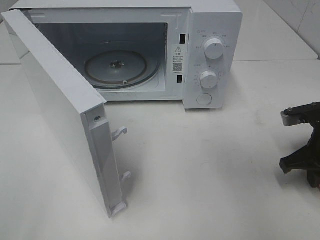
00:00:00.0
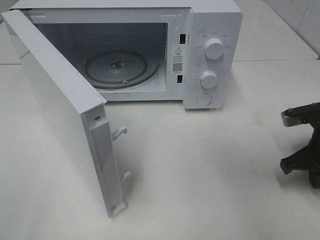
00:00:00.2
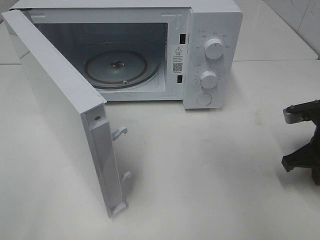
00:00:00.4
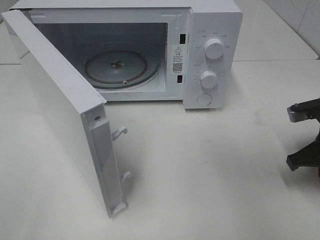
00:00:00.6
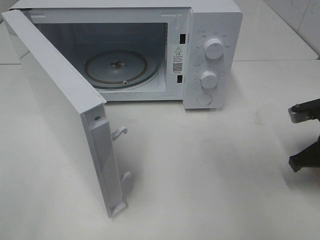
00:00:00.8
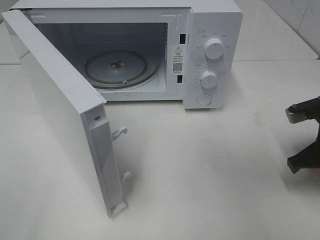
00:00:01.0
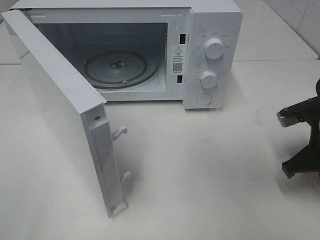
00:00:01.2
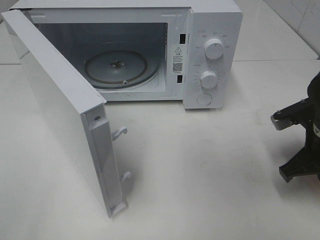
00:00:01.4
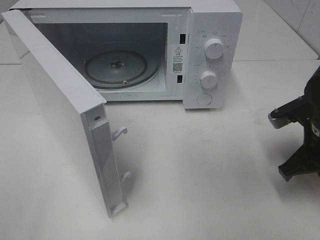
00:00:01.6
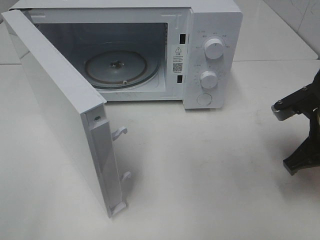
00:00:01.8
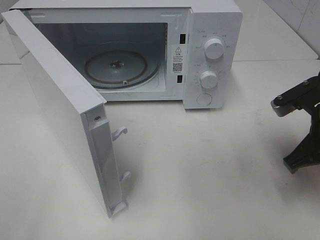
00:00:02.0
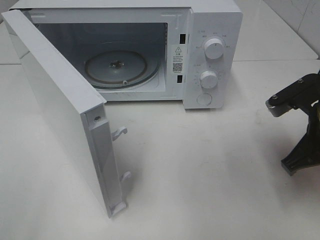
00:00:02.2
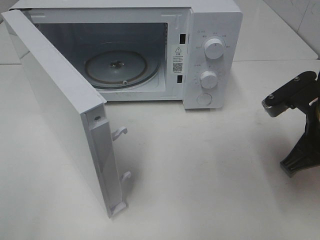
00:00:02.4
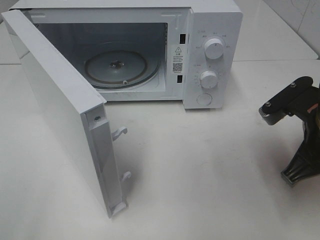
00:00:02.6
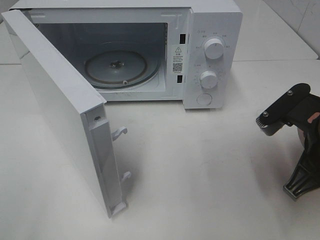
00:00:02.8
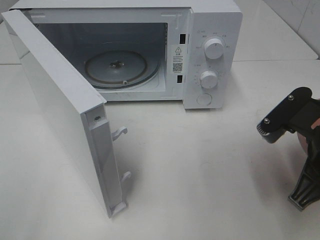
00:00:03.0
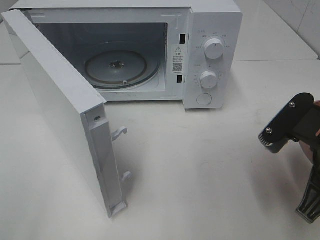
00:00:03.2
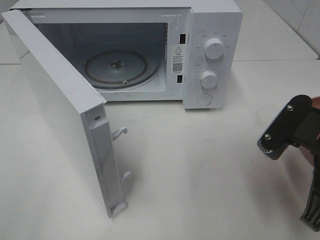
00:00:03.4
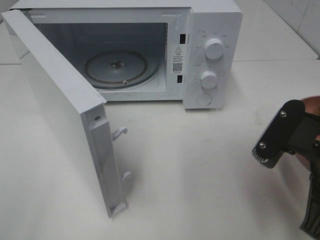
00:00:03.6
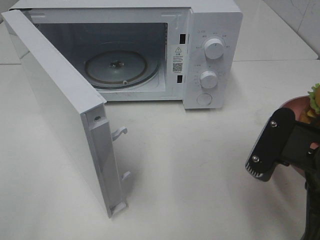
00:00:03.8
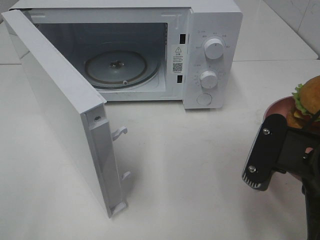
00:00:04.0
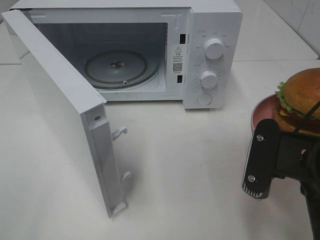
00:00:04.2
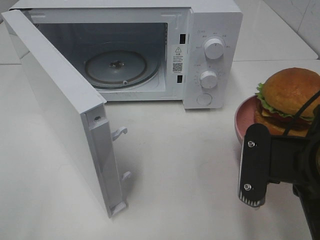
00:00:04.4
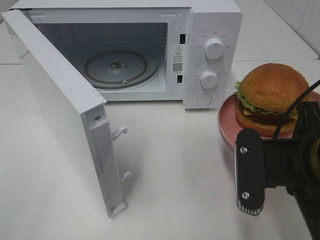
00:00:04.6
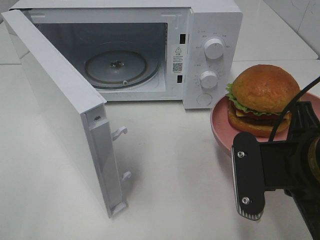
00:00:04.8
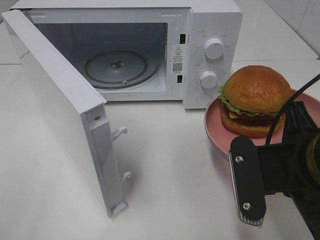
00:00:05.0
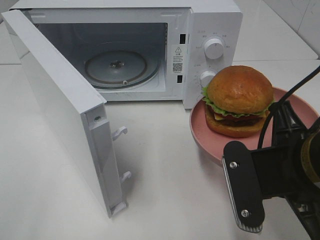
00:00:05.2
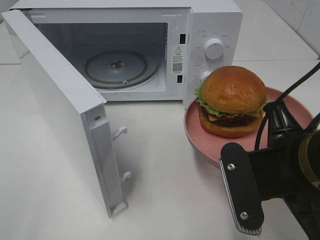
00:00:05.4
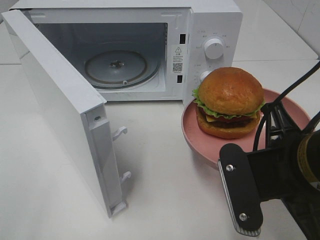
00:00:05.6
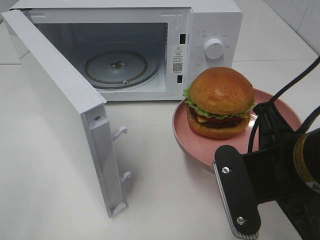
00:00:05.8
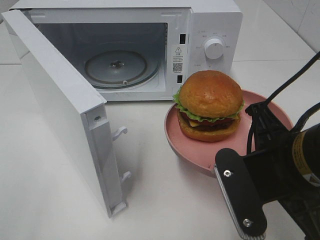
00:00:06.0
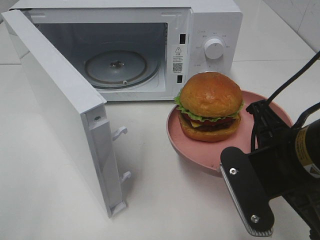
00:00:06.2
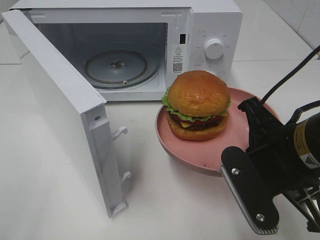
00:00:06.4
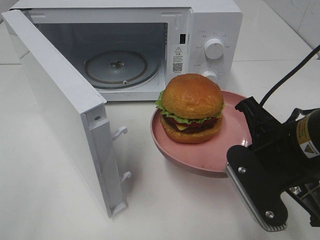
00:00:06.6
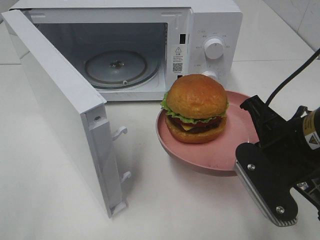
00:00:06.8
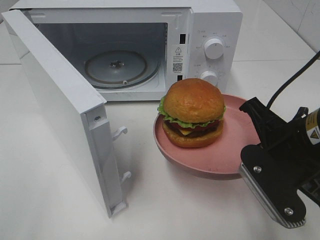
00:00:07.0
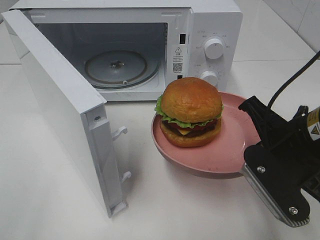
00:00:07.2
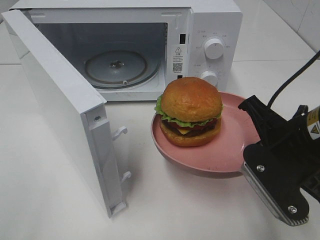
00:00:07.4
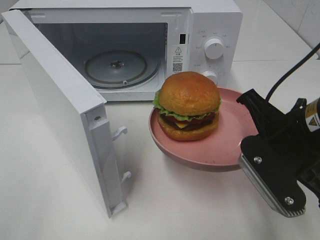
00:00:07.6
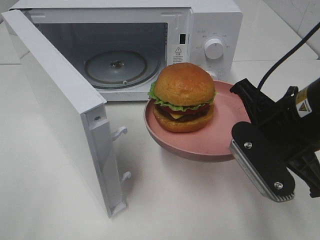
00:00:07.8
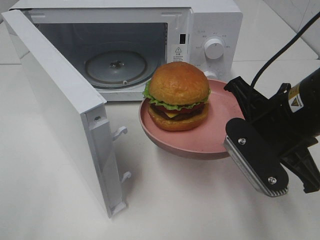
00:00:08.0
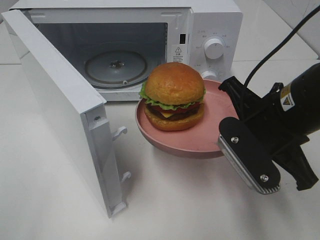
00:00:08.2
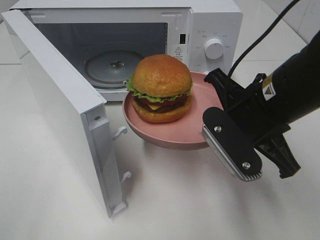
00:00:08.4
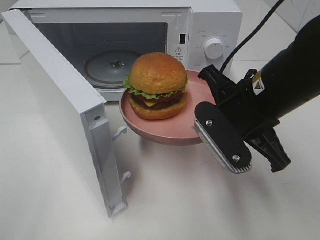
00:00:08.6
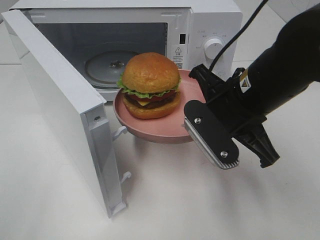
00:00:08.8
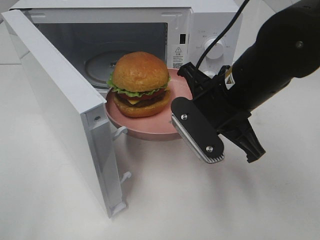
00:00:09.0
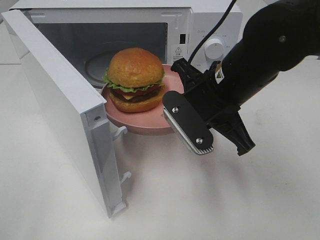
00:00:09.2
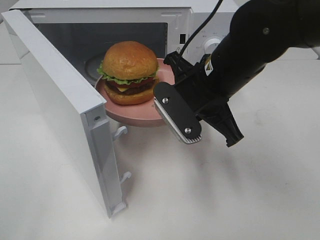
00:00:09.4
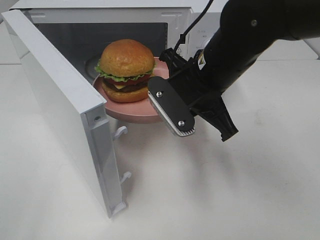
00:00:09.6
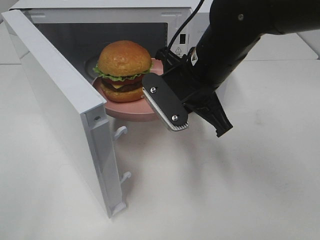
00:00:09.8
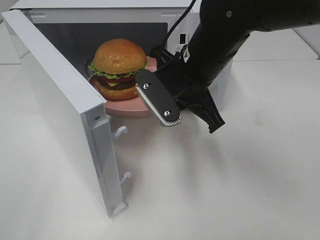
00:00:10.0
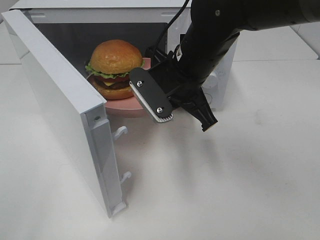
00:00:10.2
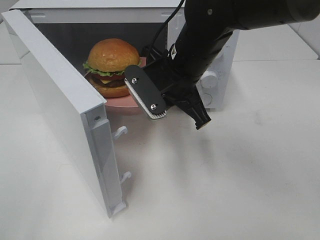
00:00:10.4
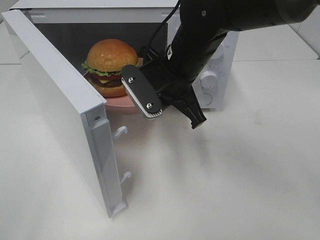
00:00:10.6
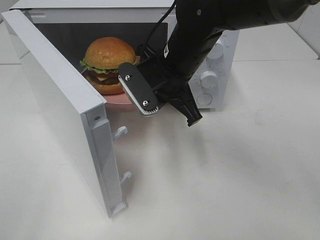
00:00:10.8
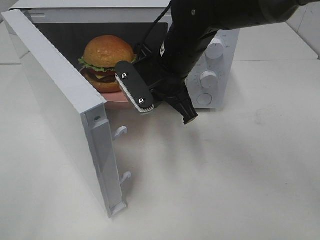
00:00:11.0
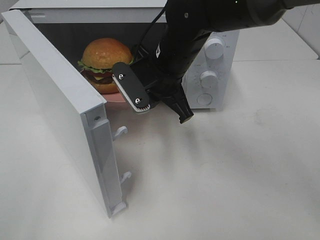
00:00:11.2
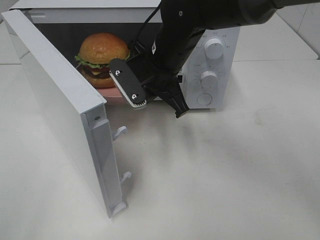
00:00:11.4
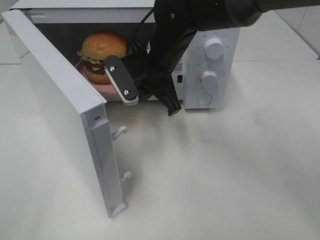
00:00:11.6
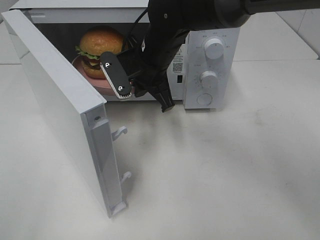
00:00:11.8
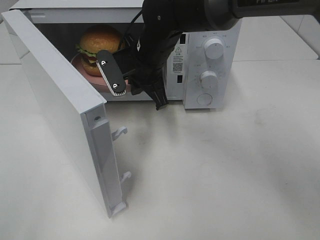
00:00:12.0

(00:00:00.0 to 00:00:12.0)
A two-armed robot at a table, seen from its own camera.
Task of the whole recording: Heat the burger.
00:00:00.0 - 00:00:01.6: The right gripper ends up roughly 5 cm from where it was.
00:00:01.6 - 00:00:03.0: The right gripper goes approximately 10 cm backward and upward.
00:00:03.0 - 00:00:04.4: The right gripper changes place by roughly 5 cm.
00:00:06.0 - 00:00:07.6: The right gripper ends up about 5 cm from where it was.
00:00:07.6 - 00:00:09.0: The right gripper goes approximately 10 cm to the left and forward.
00:00:09.0 - 00:00:10.4: The right gripper heads forward and to the left, covering about 10 cm.
00:00:10.4 - 00:00:12.0: The right gripper shifts approximately 10 cm forward and to the left.

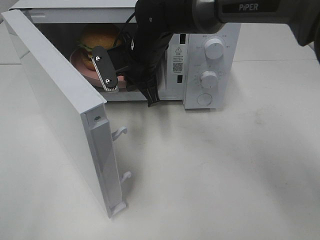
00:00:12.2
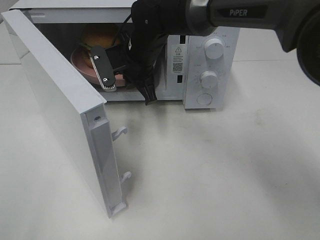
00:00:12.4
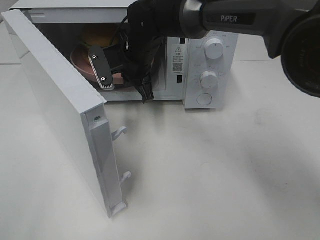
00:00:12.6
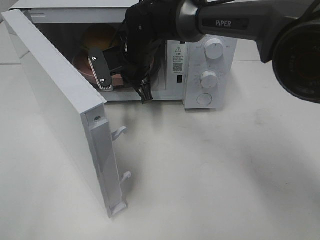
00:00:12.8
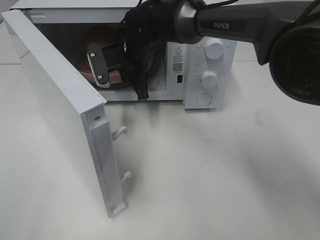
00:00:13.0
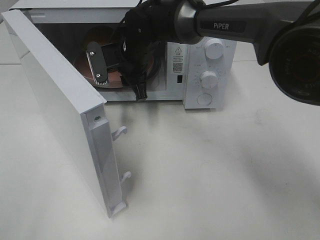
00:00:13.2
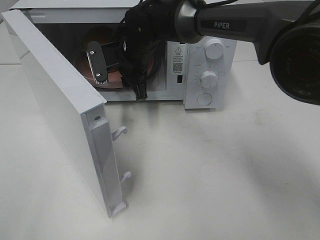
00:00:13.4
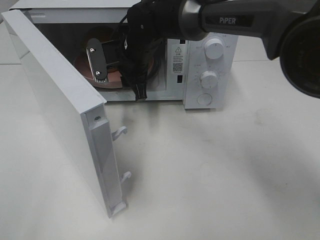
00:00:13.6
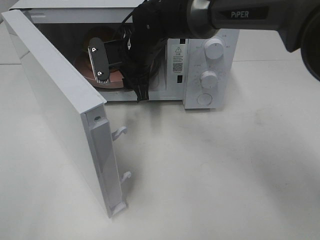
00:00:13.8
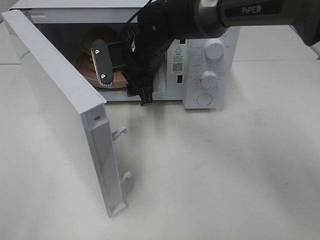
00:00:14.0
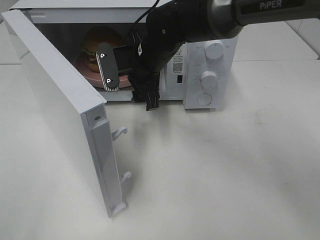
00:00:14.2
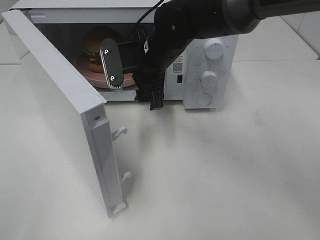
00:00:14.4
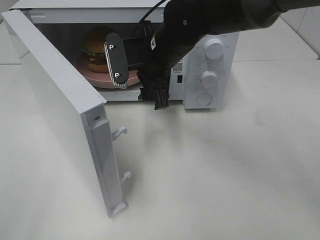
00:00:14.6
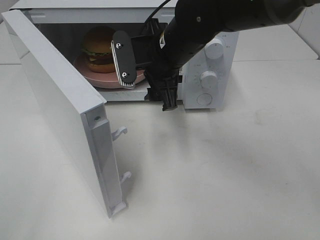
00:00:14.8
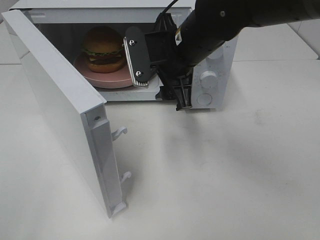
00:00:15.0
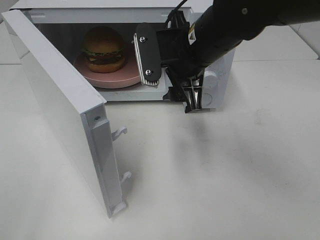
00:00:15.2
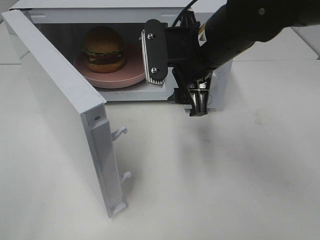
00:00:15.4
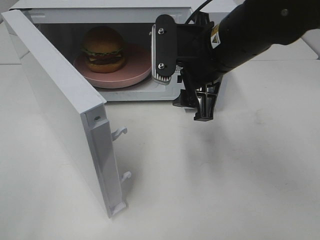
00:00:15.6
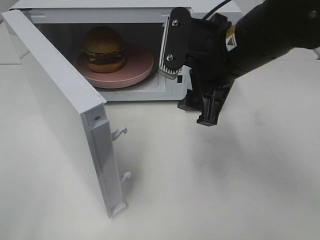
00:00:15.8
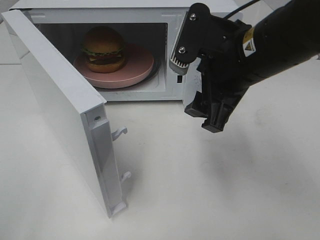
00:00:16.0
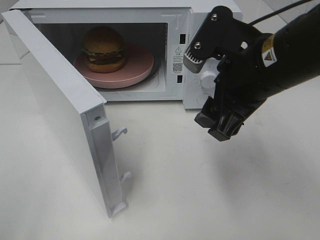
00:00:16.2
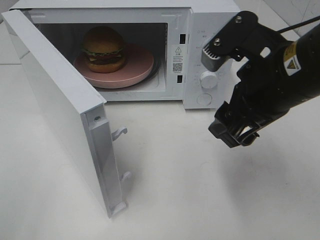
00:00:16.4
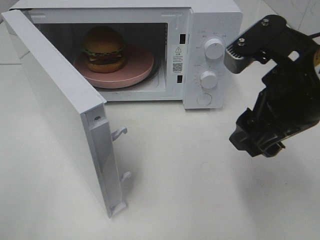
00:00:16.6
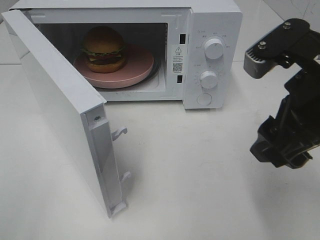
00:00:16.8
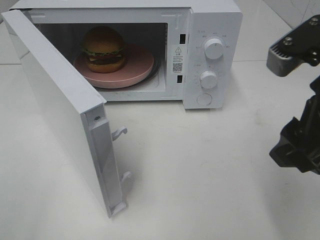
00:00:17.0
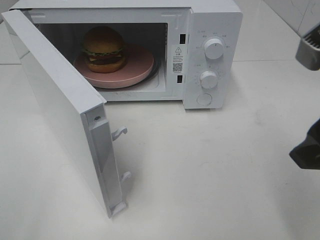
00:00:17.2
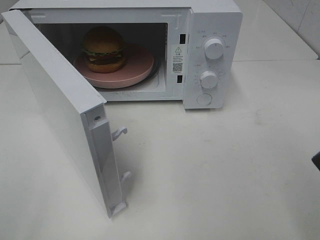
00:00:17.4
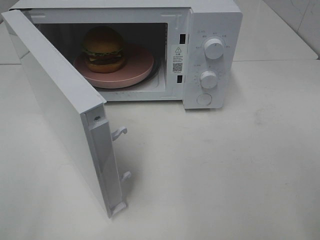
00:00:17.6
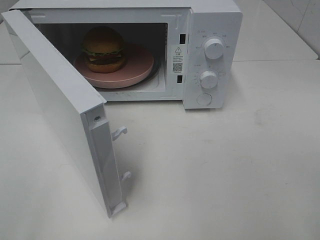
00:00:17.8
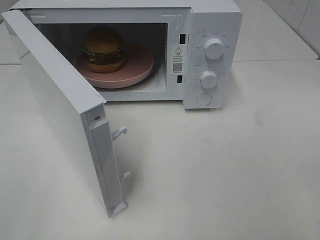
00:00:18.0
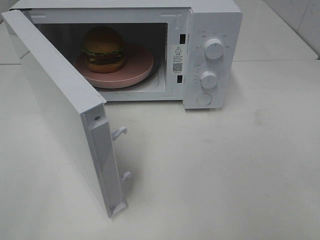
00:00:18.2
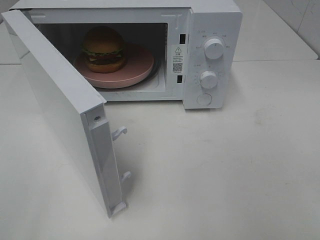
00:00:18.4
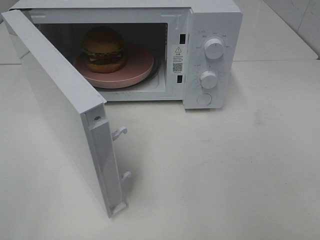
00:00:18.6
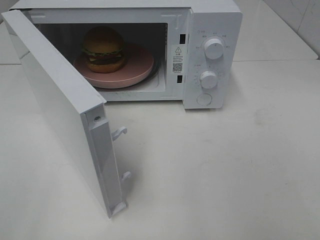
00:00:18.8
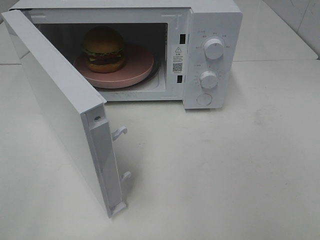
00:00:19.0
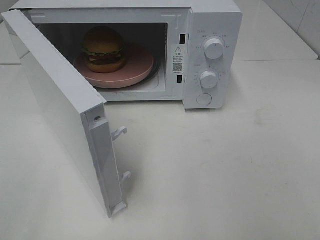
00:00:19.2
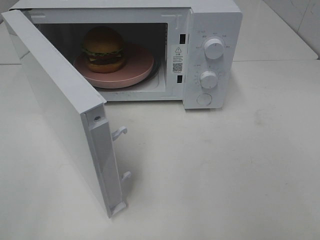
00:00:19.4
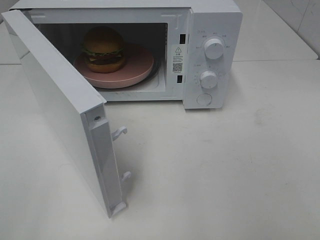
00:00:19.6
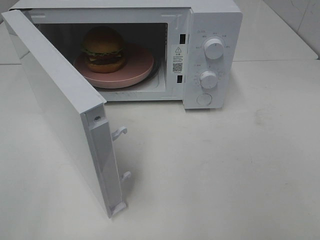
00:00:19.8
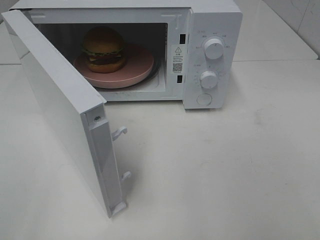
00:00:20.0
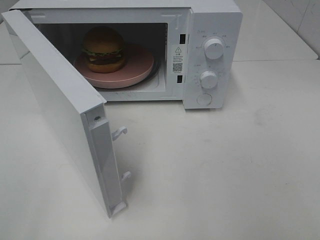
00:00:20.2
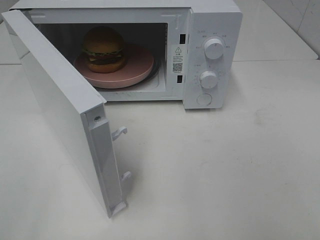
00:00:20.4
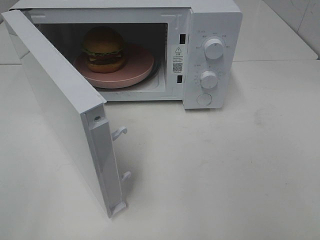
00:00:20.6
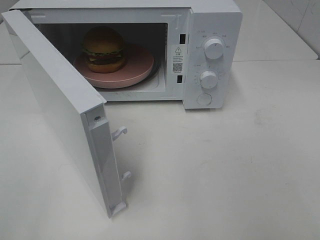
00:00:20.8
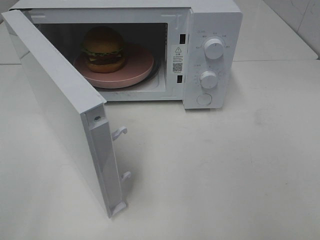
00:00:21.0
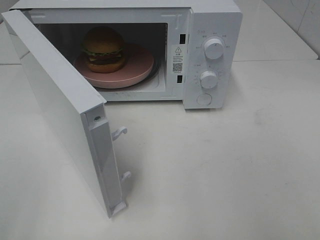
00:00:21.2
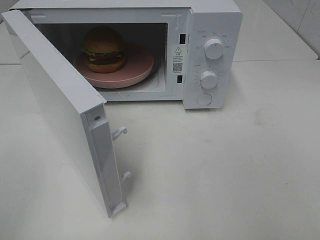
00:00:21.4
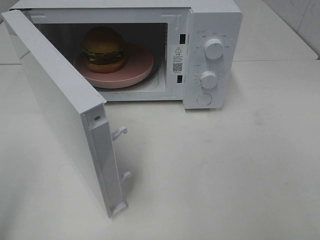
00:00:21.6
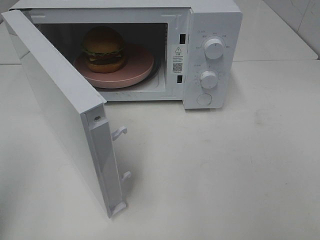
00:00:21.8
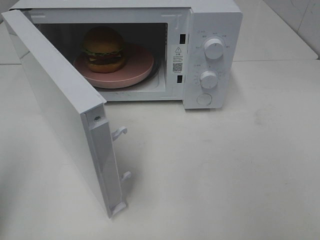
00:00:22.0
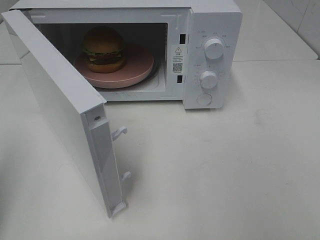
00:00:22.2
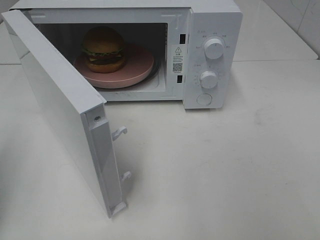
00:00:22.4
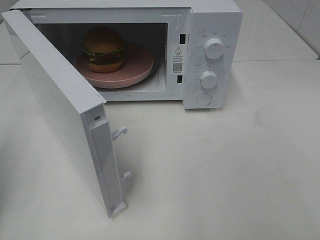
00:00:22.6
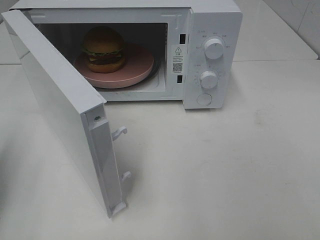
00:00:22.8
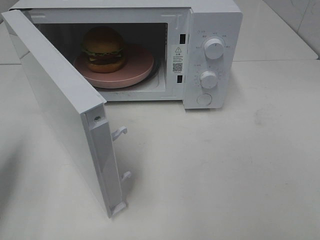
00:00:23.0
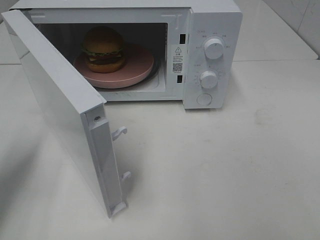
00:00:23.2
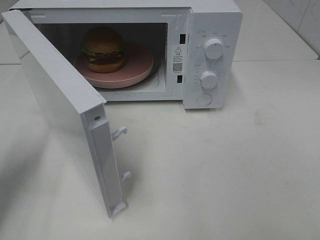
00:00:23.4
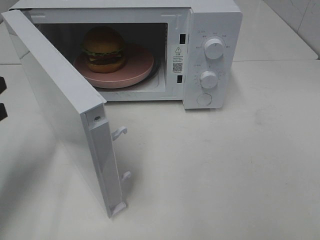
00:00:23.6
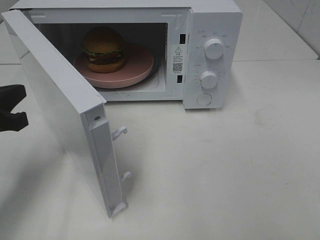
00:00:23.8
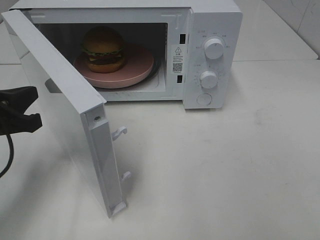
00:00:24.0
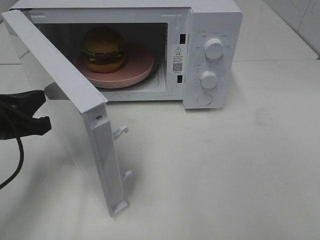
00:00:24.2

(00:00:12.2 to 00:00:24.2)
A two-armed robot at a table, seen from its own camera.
Task of the whole recording: Heat the burger.
00:00:12.2 - 00:00:13.8: The right gripper opens.
00:00:13.8 - 00:00:15.2: The right gripper moves backward, to the right and upward, approximately 15 cm.
00:00:15.2 - 00:00:16.6: The right gripper moves backward and to the right, some 15 cm.
00:00:16.6 - 00:00:18.2: The right gripper heads backward and to the right, covering some 20 cm.
00:00:22.6 - 00:00:24.2: The left gripper moves to the right, downward and forward, roughly 15 cm.
